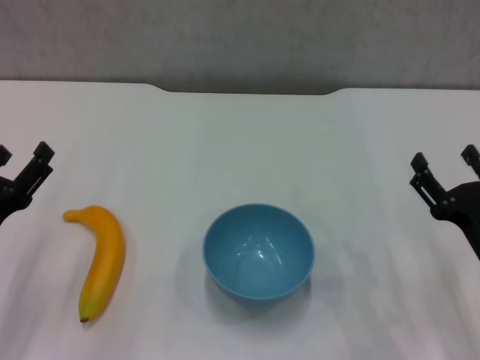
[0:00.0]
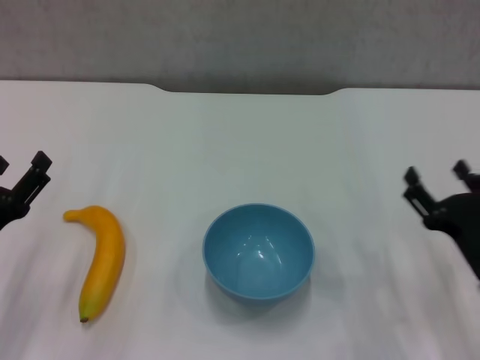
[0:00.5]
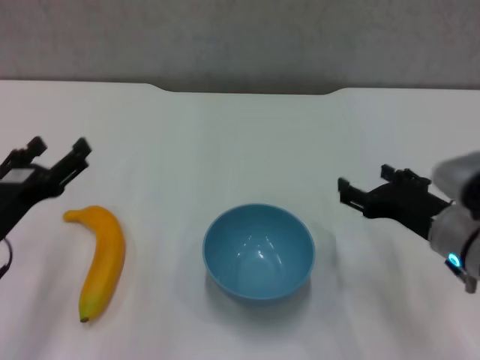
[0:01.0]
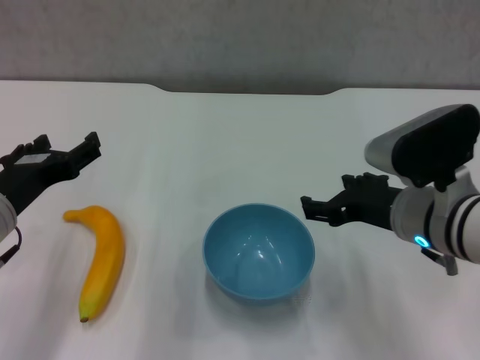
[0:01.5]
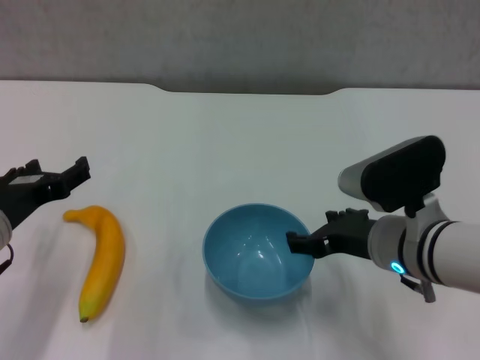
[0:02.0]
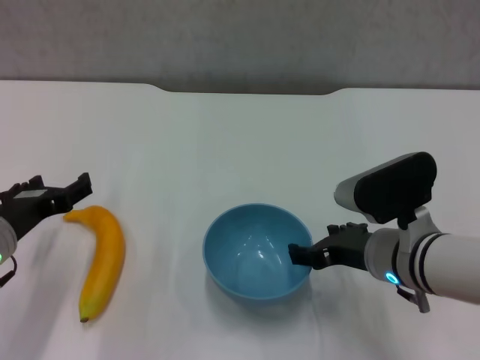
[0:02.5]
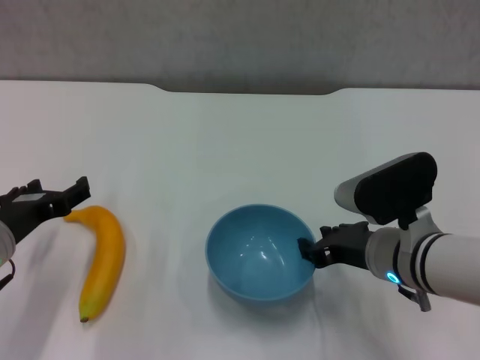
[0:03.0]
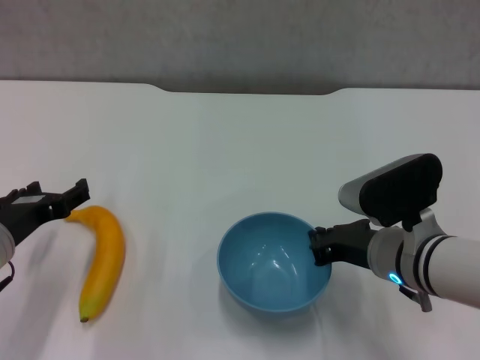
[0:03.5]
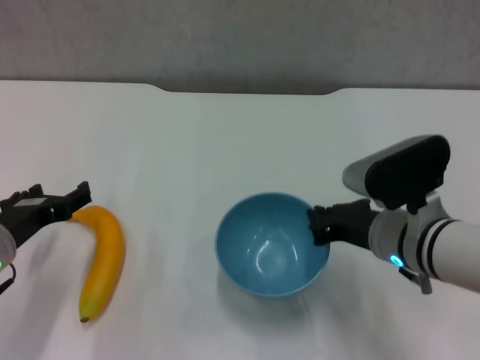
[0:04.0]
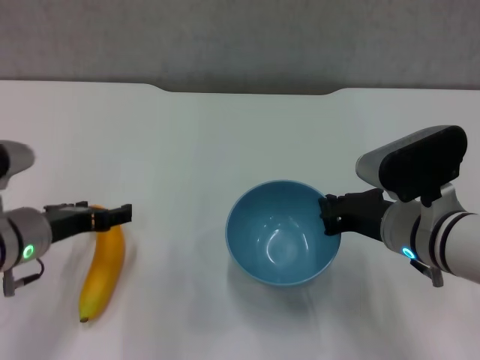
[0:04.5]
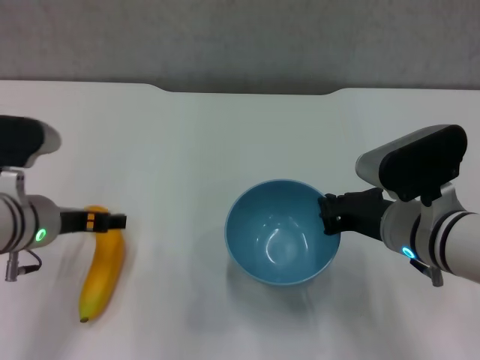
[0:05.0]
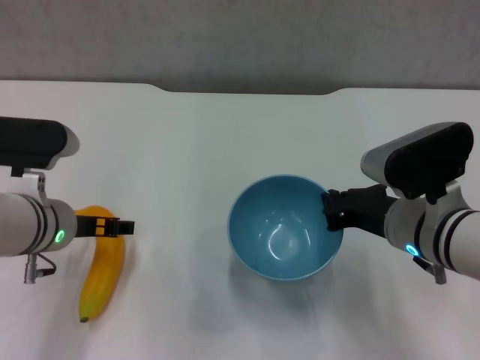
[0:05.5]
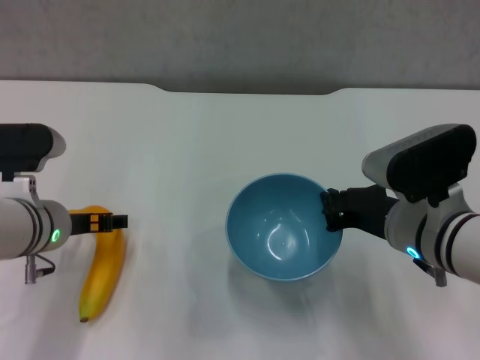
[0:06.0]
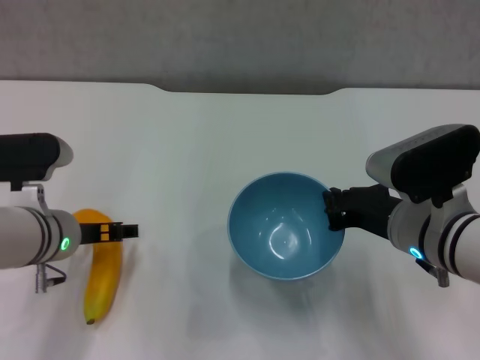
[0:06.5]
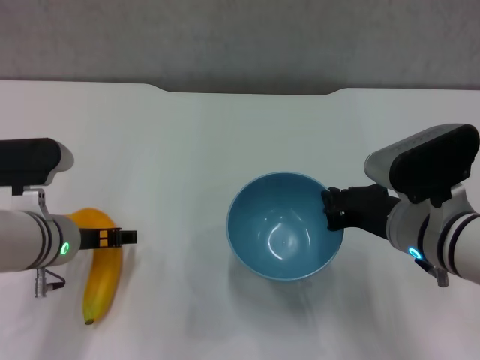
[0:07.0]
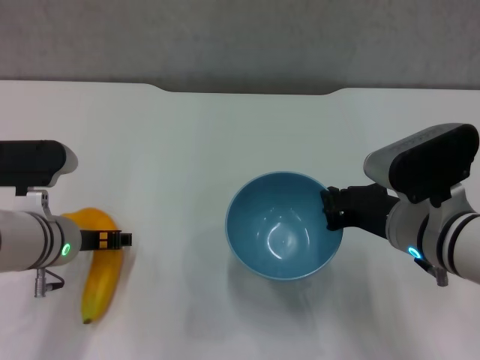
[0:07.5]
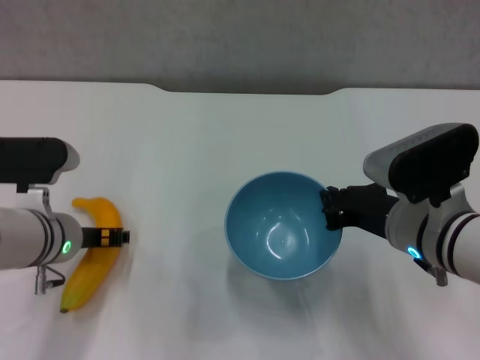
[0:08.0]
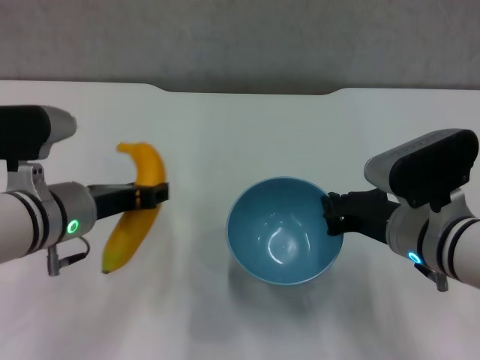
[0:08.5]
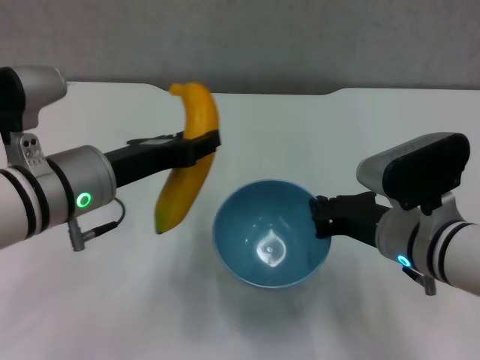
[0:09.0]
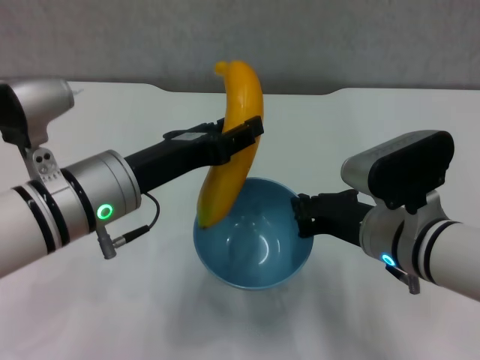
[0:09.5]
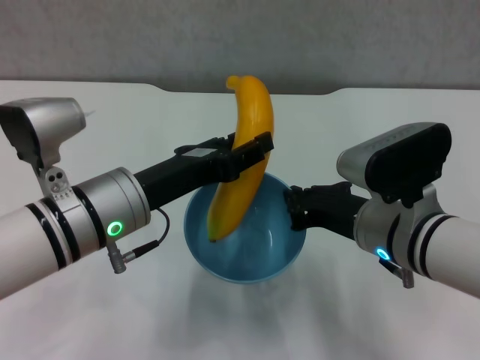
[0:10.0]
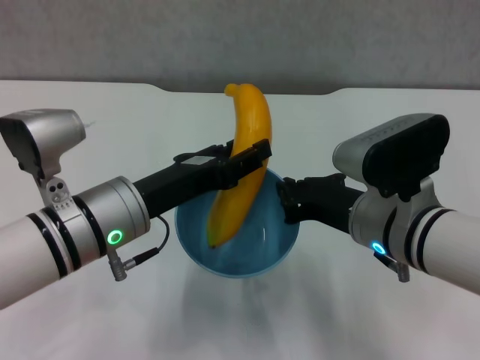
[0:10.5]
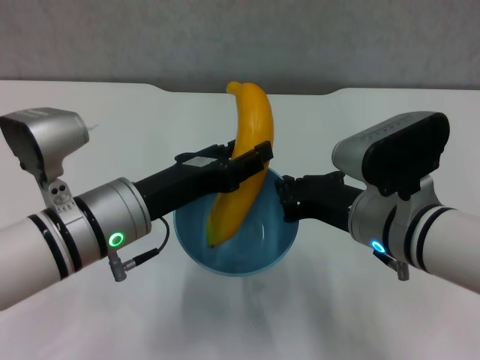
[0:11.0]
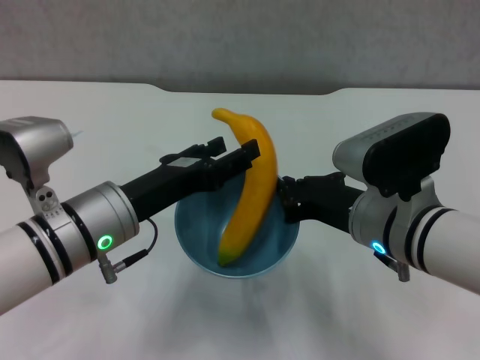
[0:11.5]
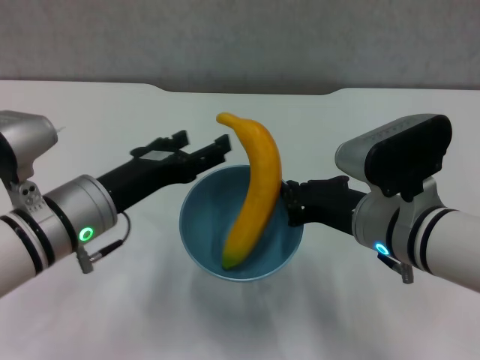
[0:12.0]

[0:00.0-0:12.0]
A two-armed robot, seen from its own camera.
Step, 0:00.0 to 0:03.0: Grasp the blue bowl with right gripper.
Step, 0:04.5 to 0:07.5: Grasp the banana with left gripper.
Step, 0:08.0 to 0:11.5: Place the banana in the blue bowl with left gripper.
0:00.0 to 0:02.0: The left gripper ends up about 5 cm from where it was, while the right gripper travels to the left, upward and forward by approximately 15 cm.
0:02.0 to 0:04.0: The right gripper closes up.
0:04.0 to 0:06.0: The left gripper moves forward, approximately 5 cm.
0:06.0 to 0:08.0: The left gripper closes up.
0:08.0 to 0:10.0: The left gripper moves upward and to the right, approximately 10 cm.
0:10.0 to 0:12.0: The left gripper opens.

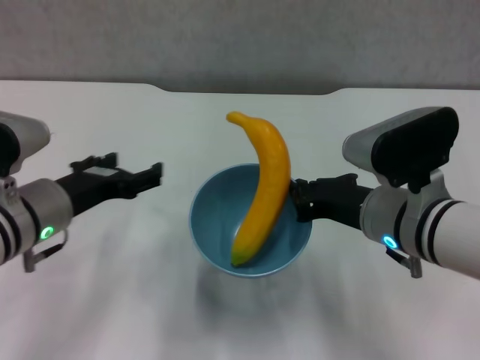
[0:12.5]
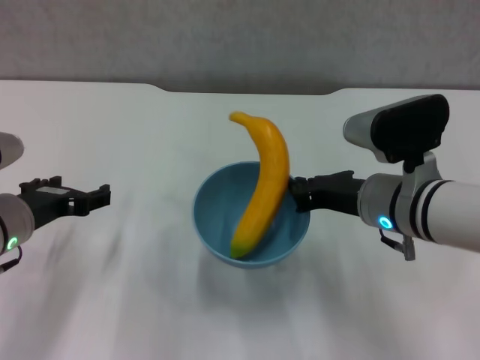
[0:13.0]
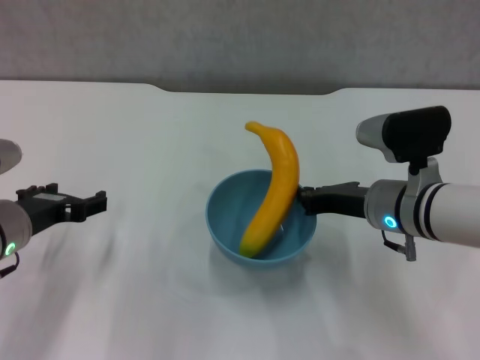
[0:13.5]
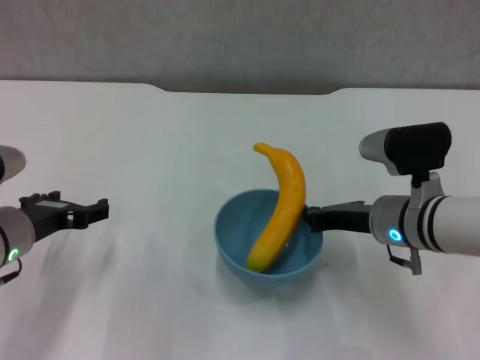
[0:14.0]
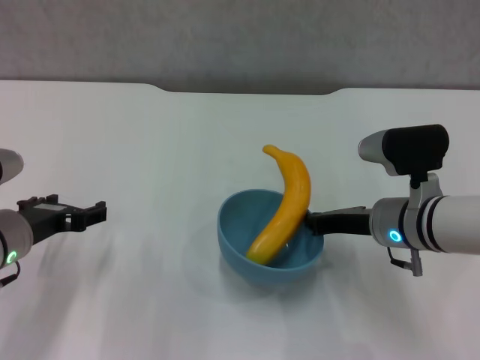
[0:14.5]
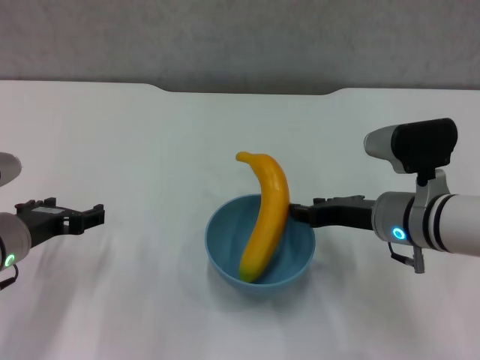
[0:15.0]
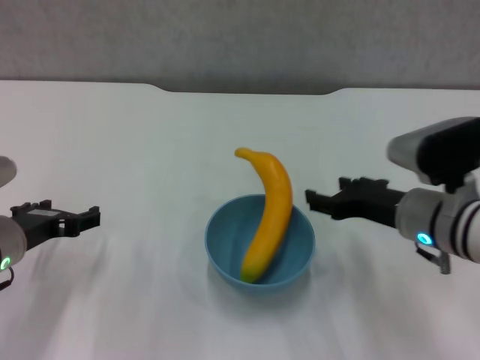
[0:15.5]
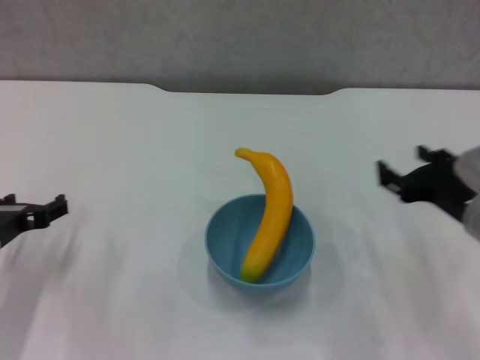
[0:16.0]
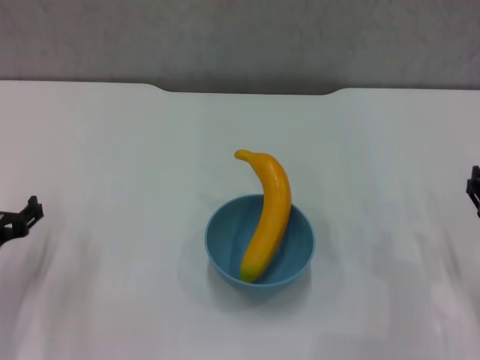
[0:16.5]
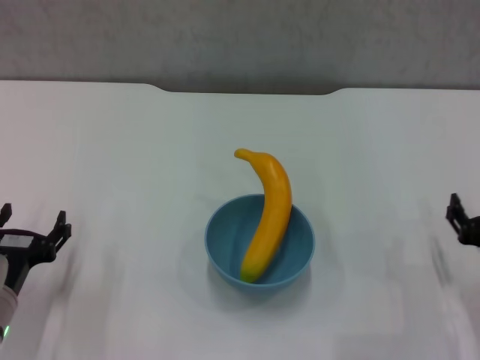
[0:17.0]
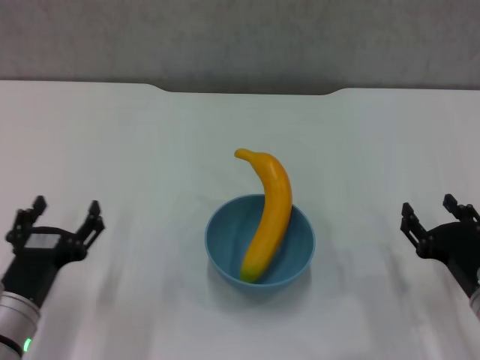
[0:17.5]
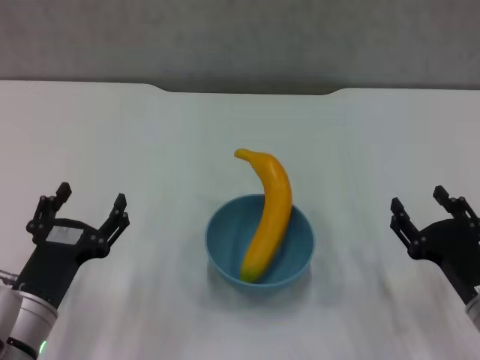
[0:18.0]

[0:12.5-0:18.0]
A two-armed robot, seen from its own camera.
Step, 0:12.5 to 0:15.0: Place the bowl on the table with right gripper.
0:12.5 to 0:14.5: The right gripper goes about 10 cm downward and forward.
0:14.5 to 0:16.0: The right gripper shifts approximately 10 cm to the right and backward, and opens up.
0:16.0 to 0:18.0: The left gripper heads backward and to the right, covering approximately 10 cm, while the right gripper shifts about 10 cm downward and backward.

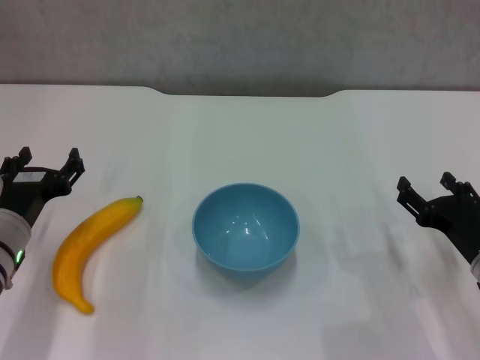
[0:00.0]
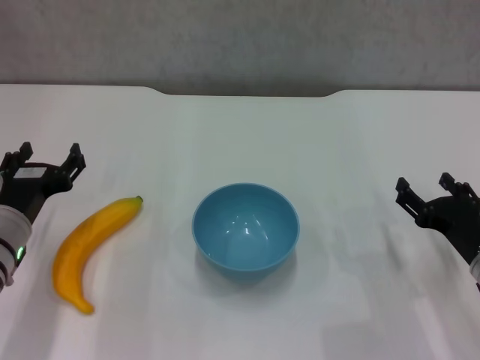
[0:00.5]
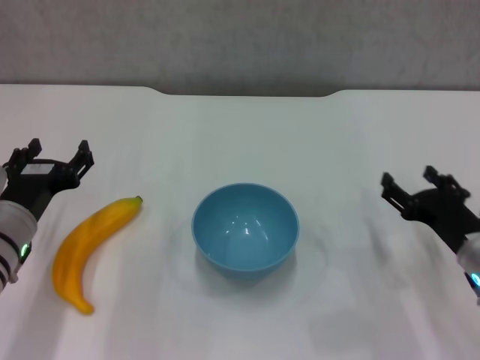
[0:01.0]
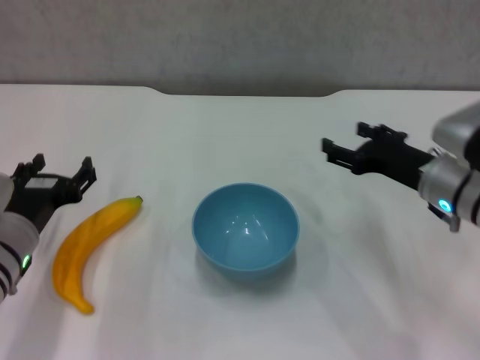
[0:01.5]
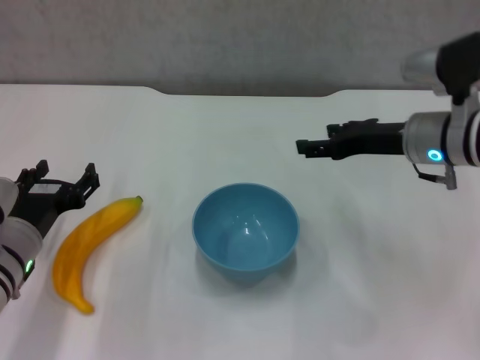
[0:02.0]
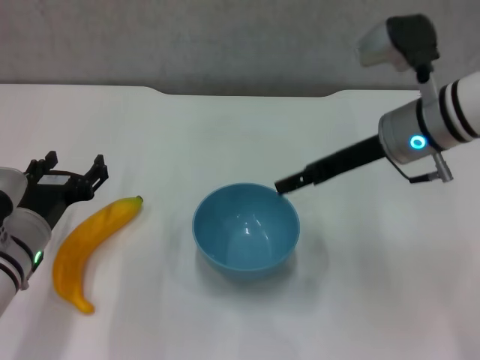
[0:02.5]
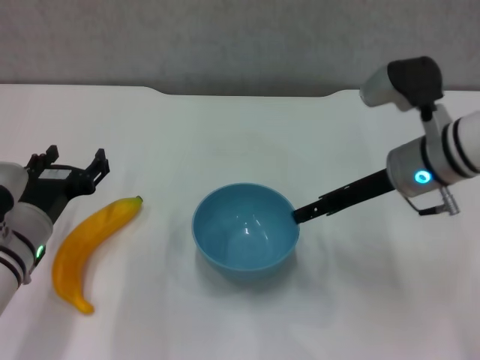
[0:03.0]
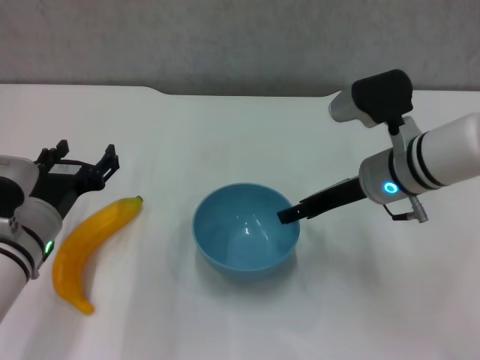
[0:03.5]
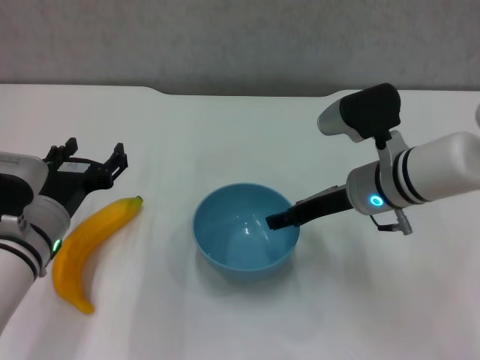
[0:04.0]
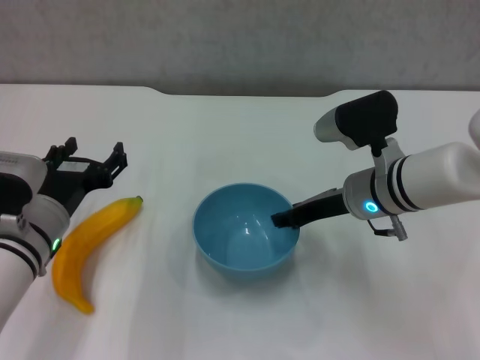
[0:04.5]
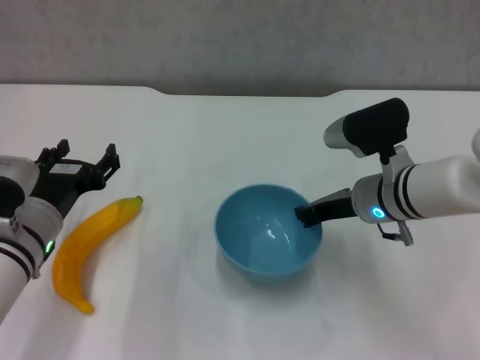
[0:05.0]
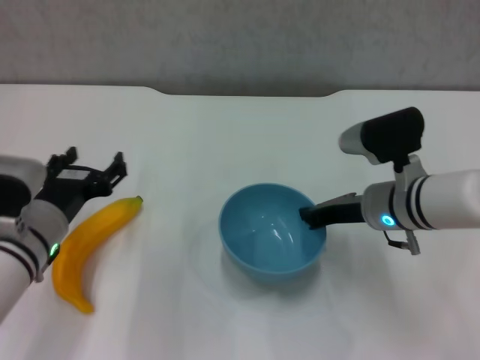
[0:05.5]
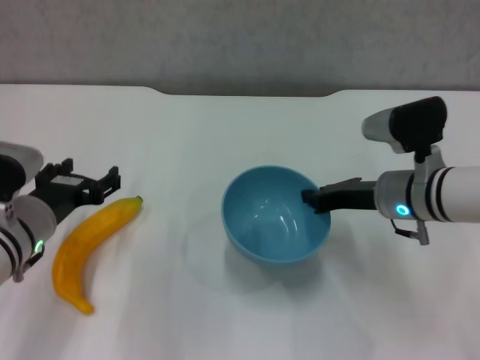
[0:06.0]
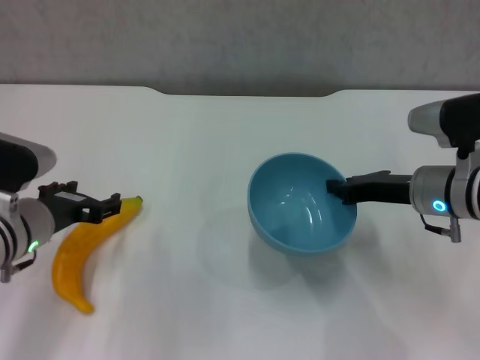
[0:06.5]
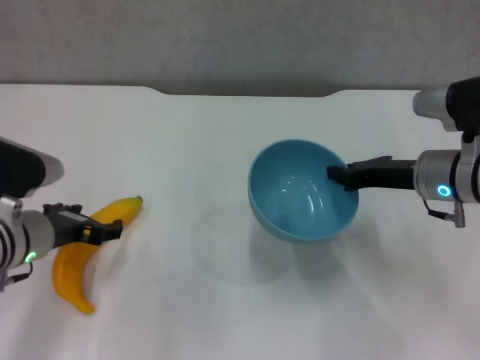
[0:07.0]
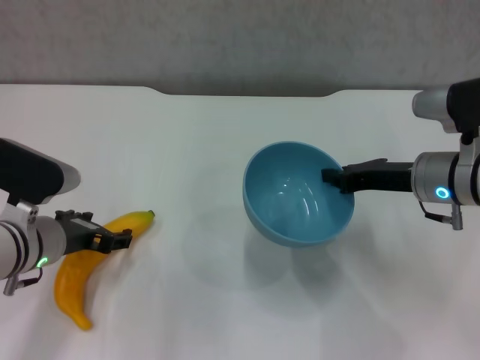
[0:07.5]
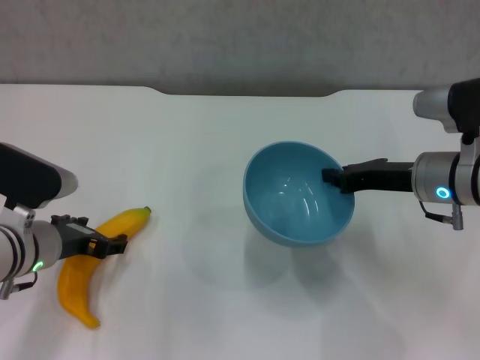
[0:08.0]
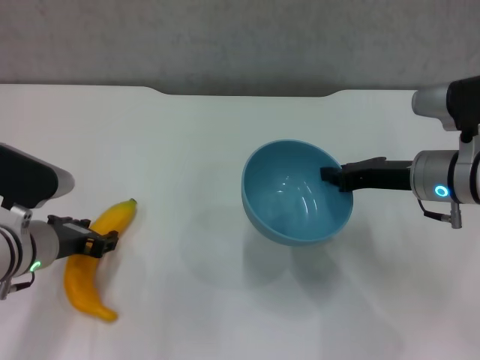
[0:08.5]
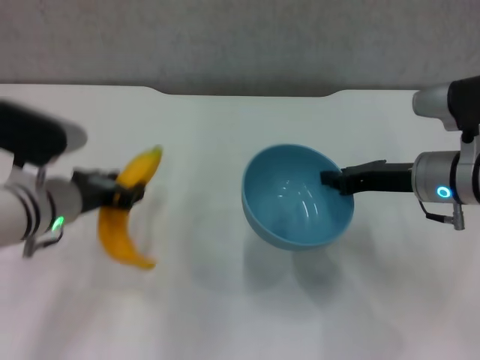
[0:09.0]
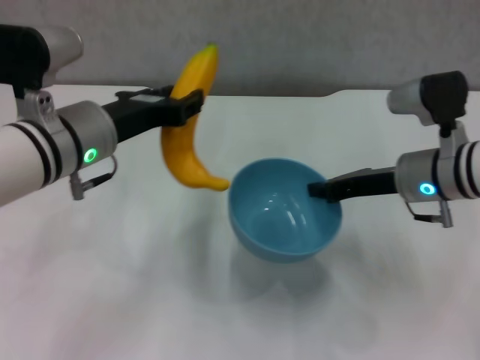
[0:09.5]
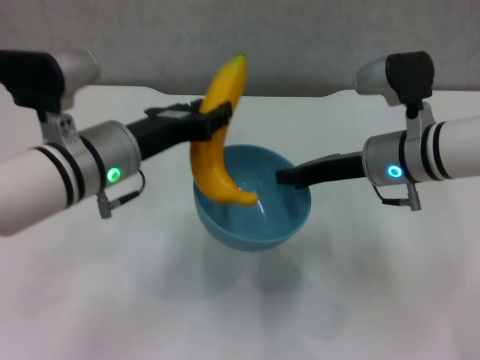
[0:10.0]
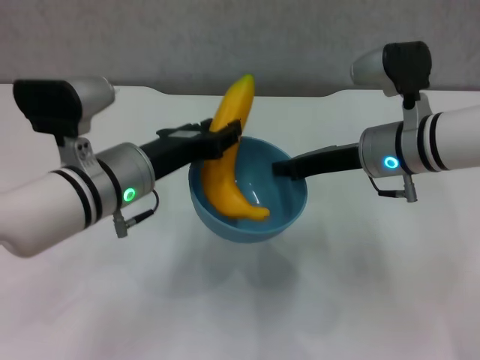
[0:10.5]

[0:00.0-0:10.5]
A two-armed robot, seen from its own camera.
Step, 0:00.0 to 0:05.0: Grasp the blue bowl with right gripper.
Step, 0:05.5 to 0:06.5: Lift the blue bowl with right gripper.
Step, 0:07.0 to 0:08.5: Grasp the banana with left gripper.
0:00.0 to 0:02.0: The right gripper goes approximately 20 cm forward, upward and to the left.
0:02.0 to 0:04.0: The right gripper travels to the left by approximately 5 cm.
0:04.0 to 0:06.5: The right gripper is displaced to the right by roughly 5 cm, and closes up.
0:06.5 to 0:08.5: The grippers stay close to where they were, moving slightly.
0:08.5 to 0:10.5: The right gripper travels to the left by roughly 5 cm; the left gripper heads to the right and upward, covering roughly 10 cm, and closes up.
